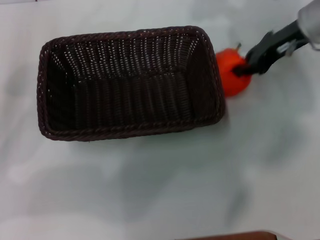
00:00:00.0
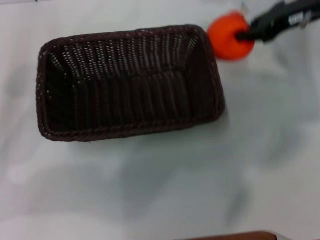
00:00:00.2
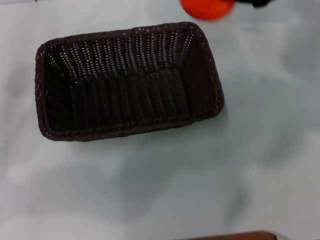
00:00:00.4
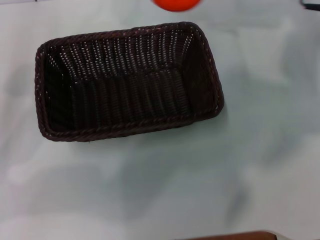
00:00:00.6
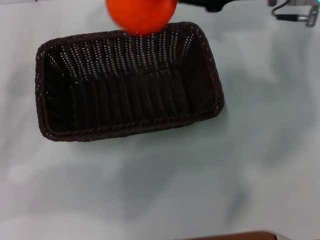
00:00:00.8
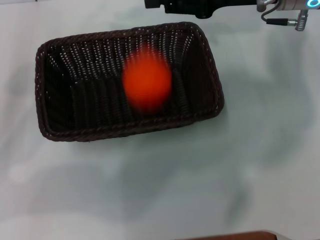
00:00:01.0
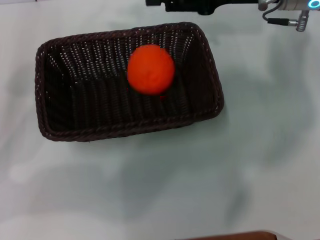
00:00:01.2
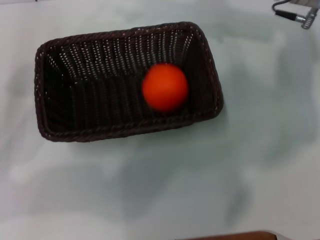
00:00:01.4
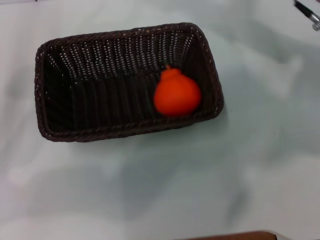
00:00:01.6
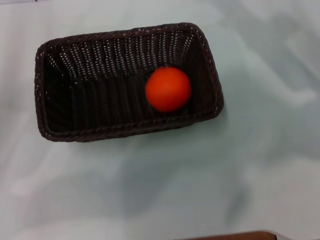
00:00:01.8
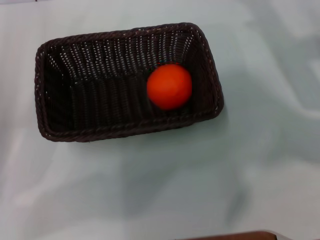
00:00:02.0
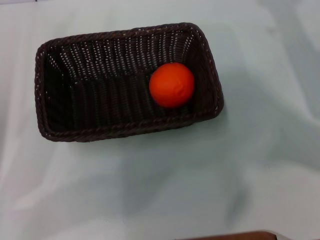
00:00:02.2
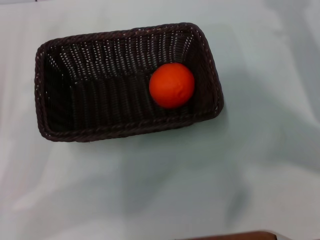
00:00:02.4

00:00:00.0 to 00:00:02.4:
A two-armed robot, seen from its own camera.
Task of the whole recording: the left gripper pick up the black basket and place it horizontally in the middle of the table, the right gripper pick up the orange and place it into the black basket.
Step, 00:00:00.4 to 00:00:01.0: Place the orange into the dark basket with the right gripper.
00:00:00.0 to 00:00:01.2: The right gripper changes place by about 5 cm.
00:00:01.2 to 00:00:02.4: The right gripper shifts some 20 cm to the right, downward and backward, and opens.
